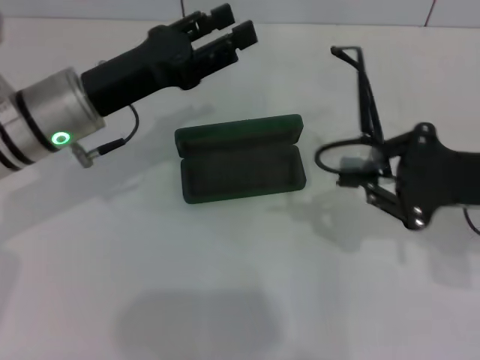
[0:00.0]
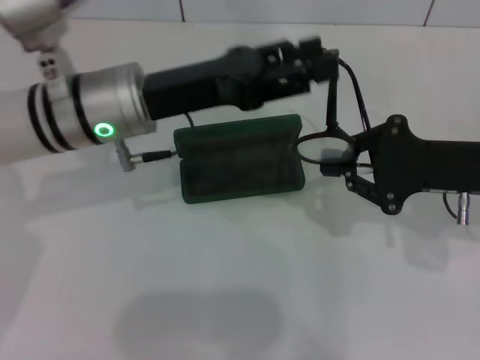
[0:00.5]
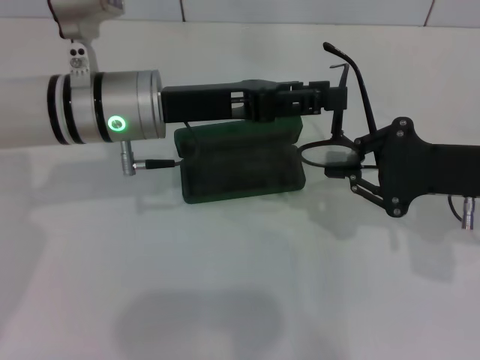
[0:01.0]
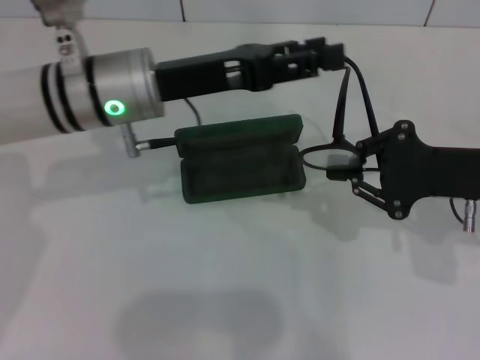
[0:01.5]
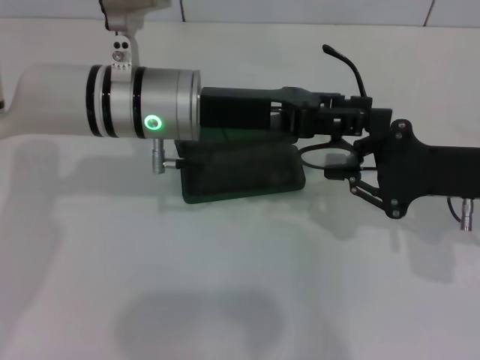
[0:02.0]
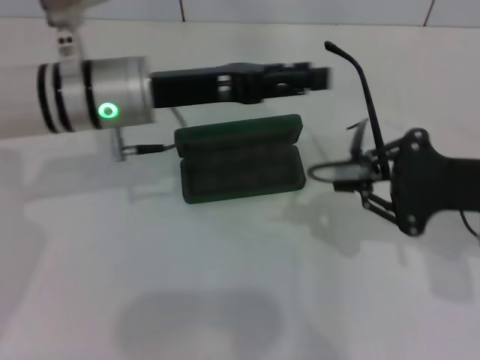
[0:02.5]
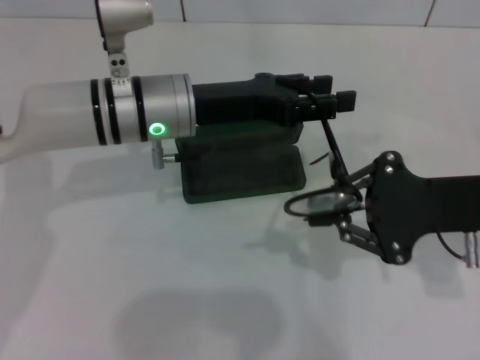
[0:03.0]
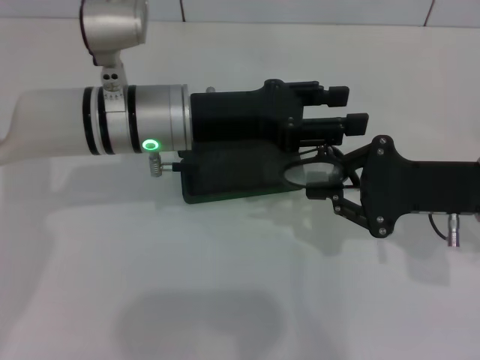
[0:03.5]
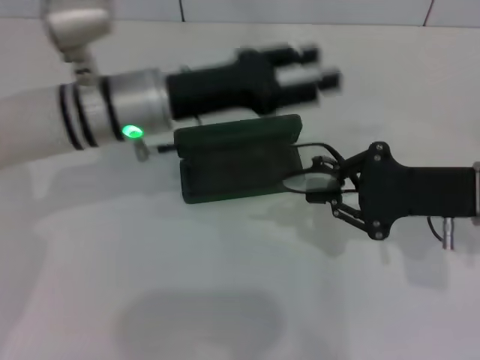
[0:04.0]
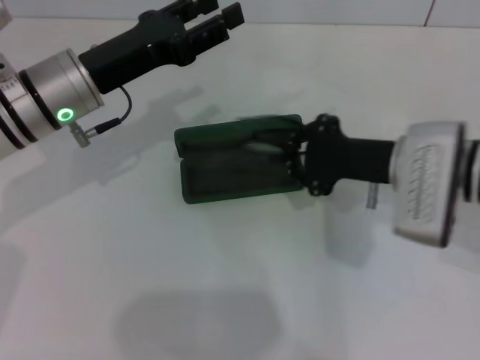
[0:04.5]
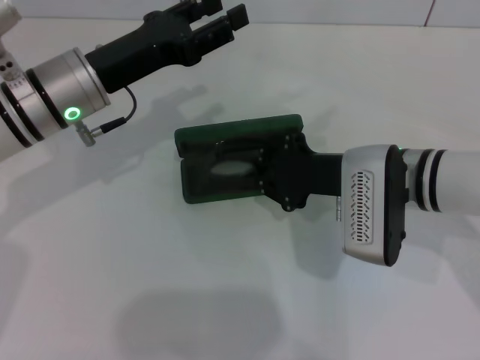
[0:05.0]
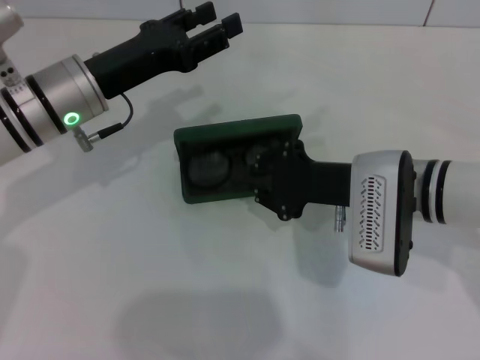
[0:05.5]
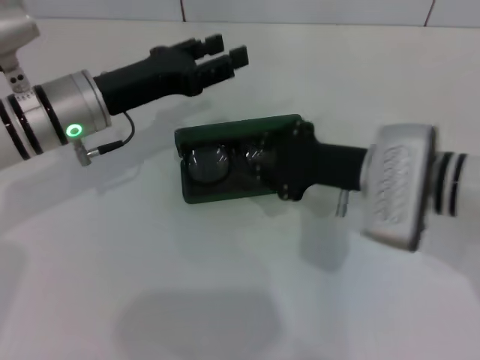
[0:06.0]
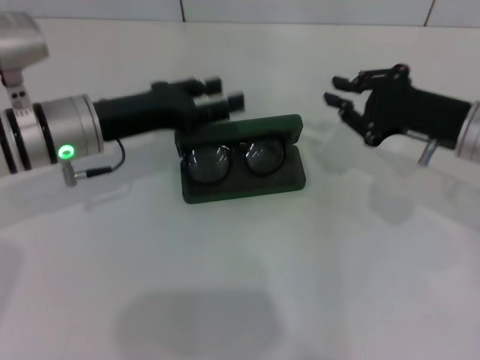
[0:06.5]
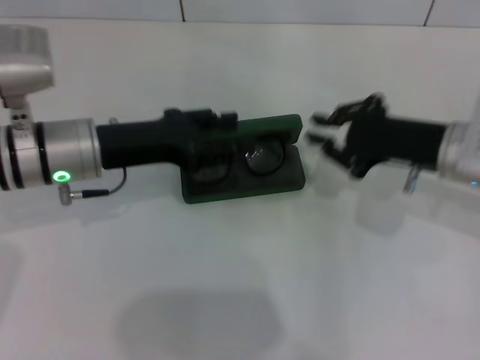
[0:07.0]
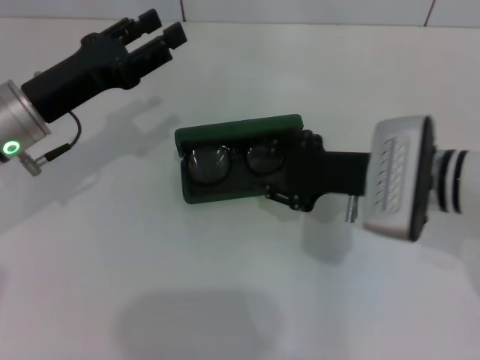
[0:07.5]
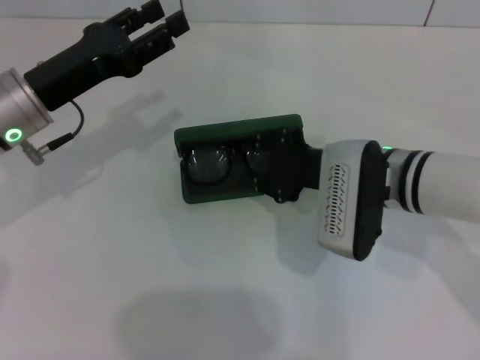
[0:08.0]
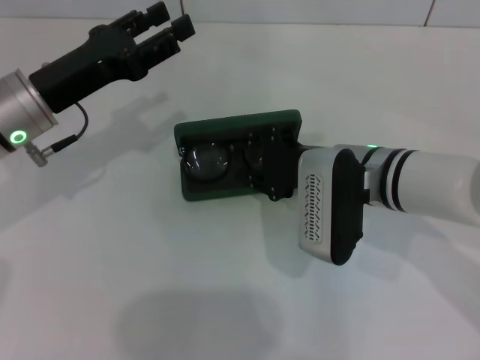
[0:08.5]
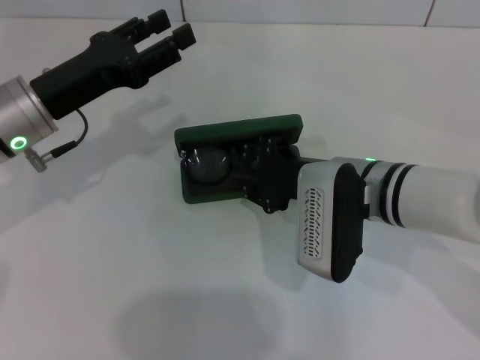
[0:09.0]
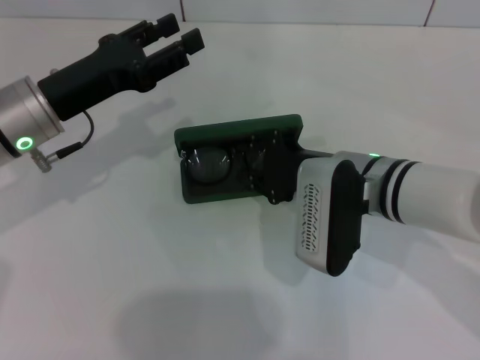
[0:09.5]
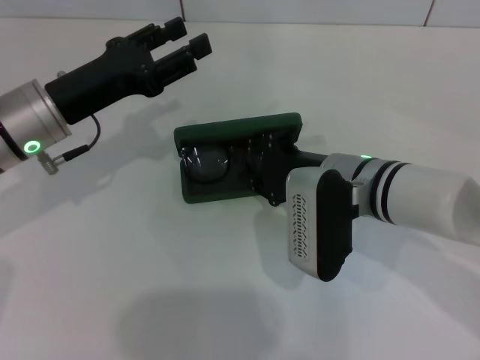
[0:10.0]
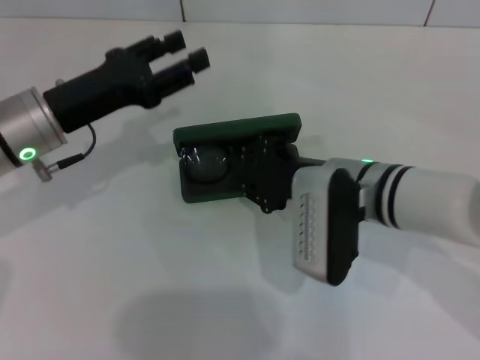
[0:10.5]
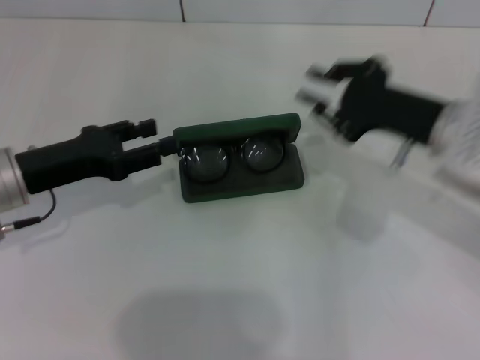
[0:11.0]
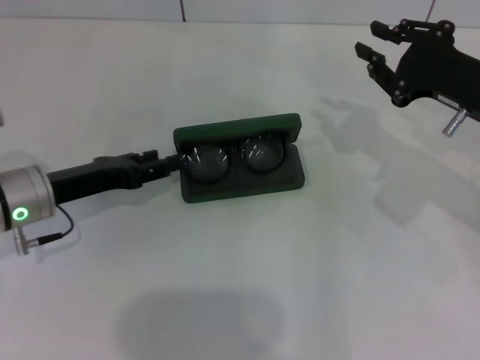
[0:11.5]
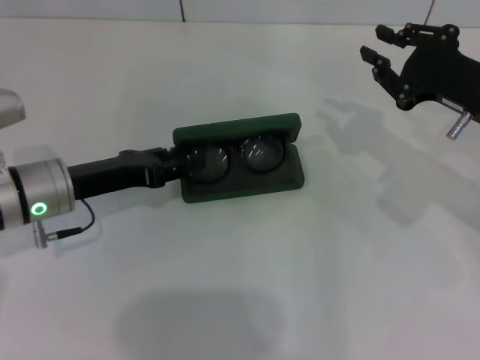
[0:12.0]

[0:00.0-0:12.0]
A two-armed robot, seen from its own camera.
Step, 0:00.0 to 0:03.5: Fold the frame with your left hand.
Step, 0:04.0 to 0:10.0: Put the glasses into the case with your right hand.
0:00.0 to 0:02.0: The left gripper travels to the right by roughly 10 cm.
0:04.0 to 0:06.0: Both grippers travel together to the left, some 10 cm.
0:06.0 to 0:08.0: The right gripper moves approximately 10 cm to the right and comes back.
0:08.0 to 0:10.0: There are only small adjustments of the grippers.
0:10.0 to 0:12.0: The left gripper goes about 5 cm downward; the right gripper travels to the right by roughly 15 cm.

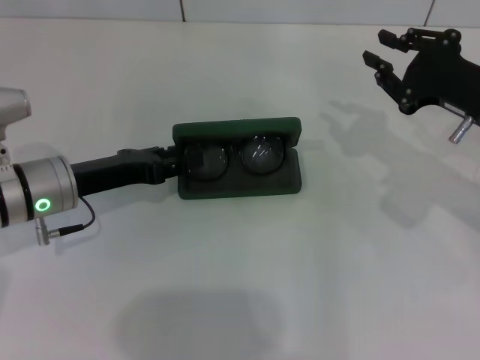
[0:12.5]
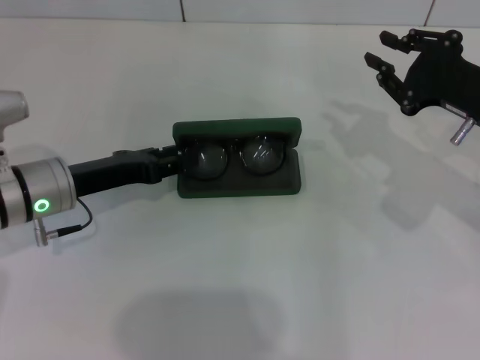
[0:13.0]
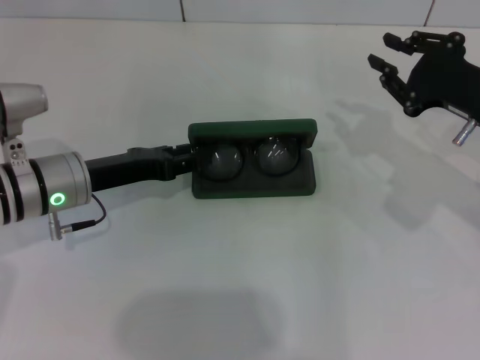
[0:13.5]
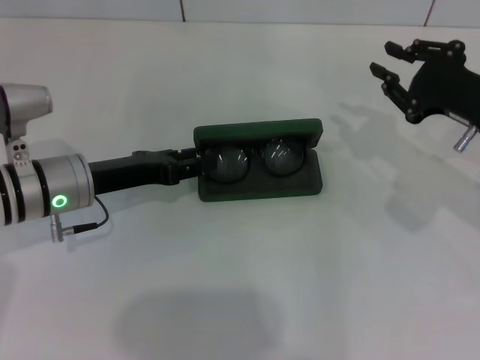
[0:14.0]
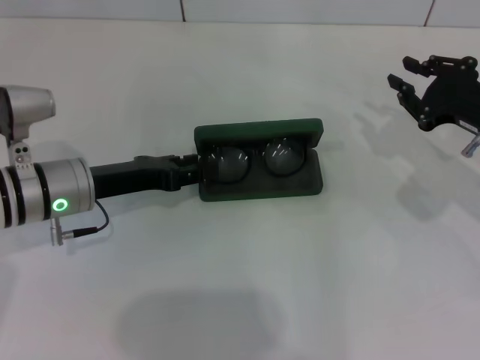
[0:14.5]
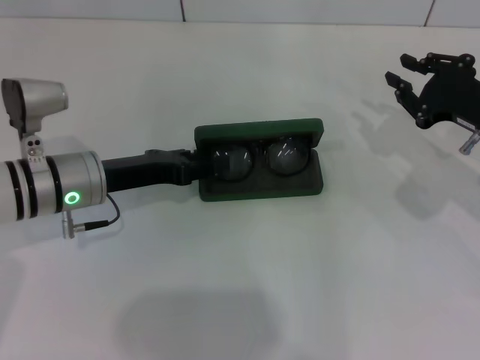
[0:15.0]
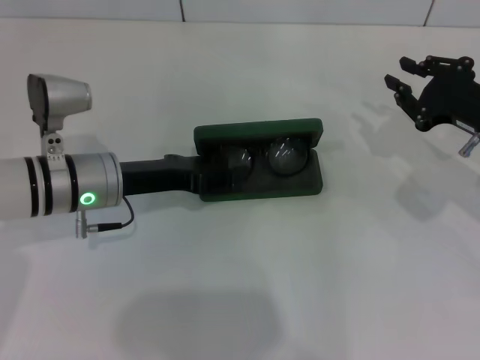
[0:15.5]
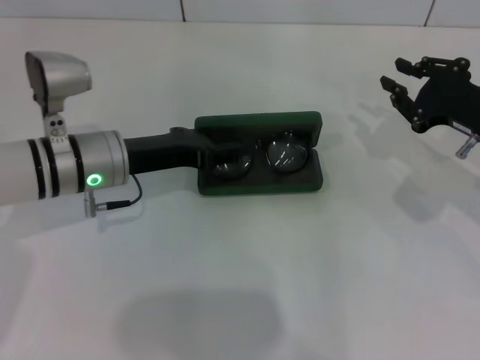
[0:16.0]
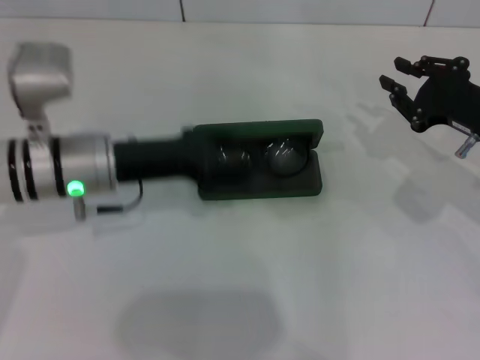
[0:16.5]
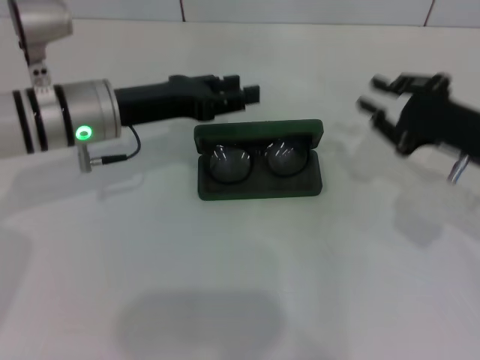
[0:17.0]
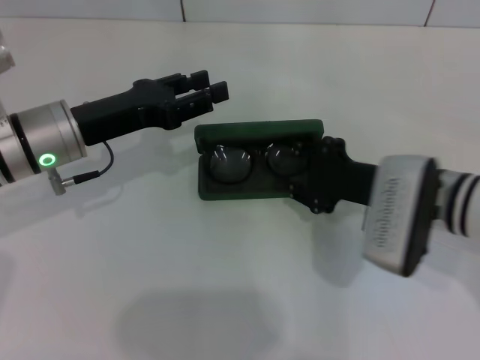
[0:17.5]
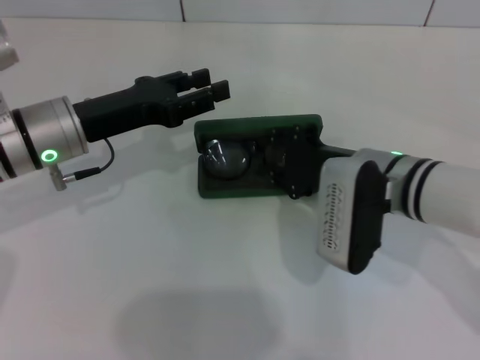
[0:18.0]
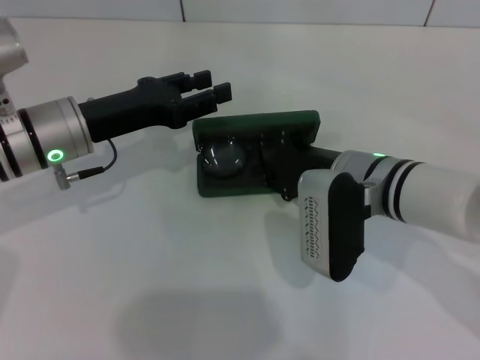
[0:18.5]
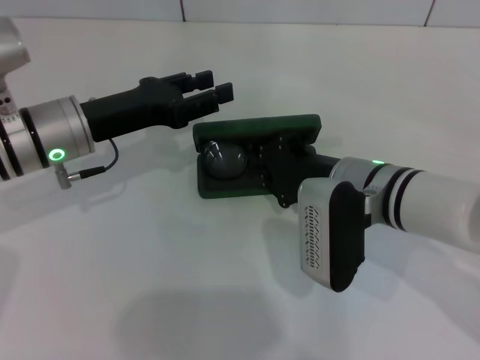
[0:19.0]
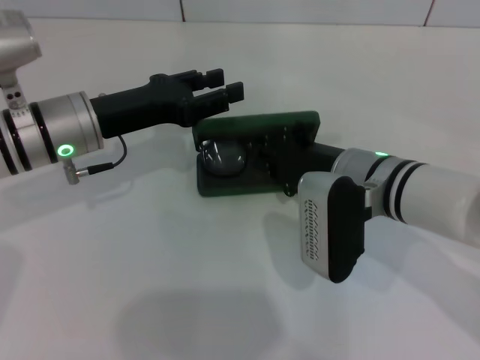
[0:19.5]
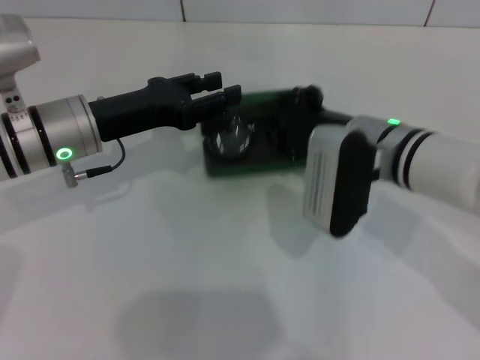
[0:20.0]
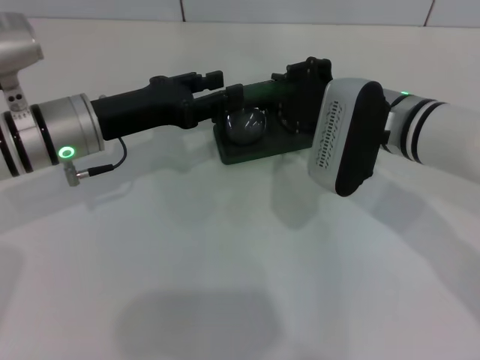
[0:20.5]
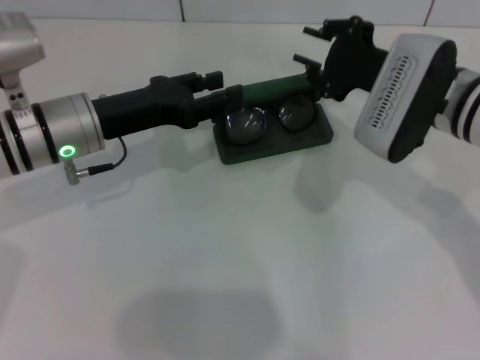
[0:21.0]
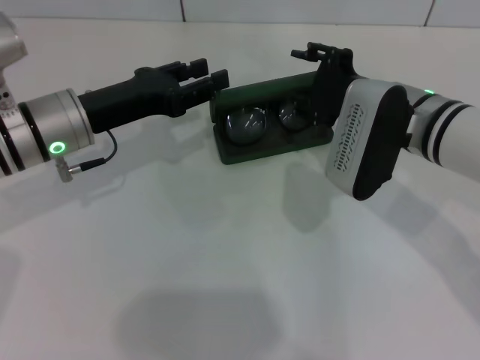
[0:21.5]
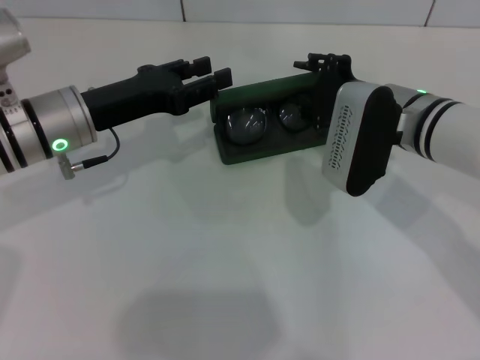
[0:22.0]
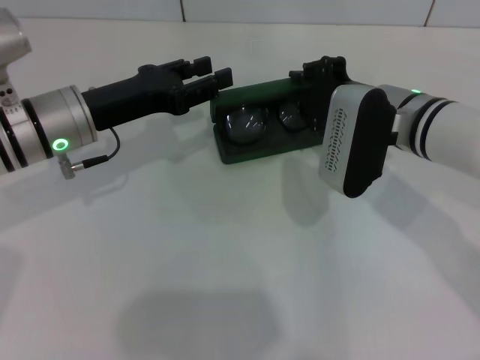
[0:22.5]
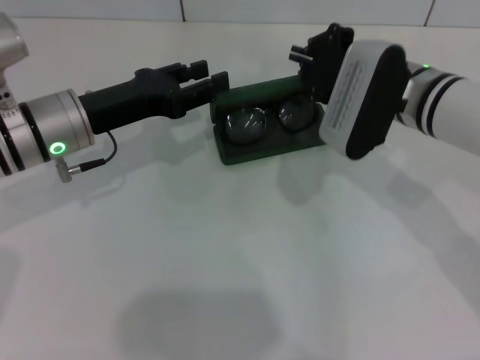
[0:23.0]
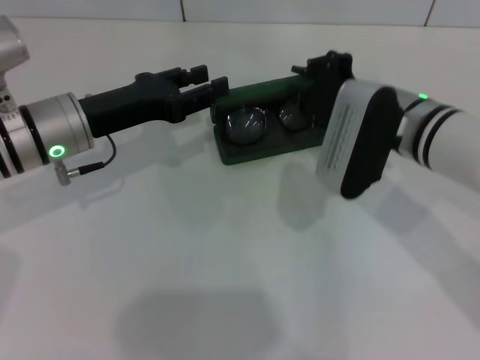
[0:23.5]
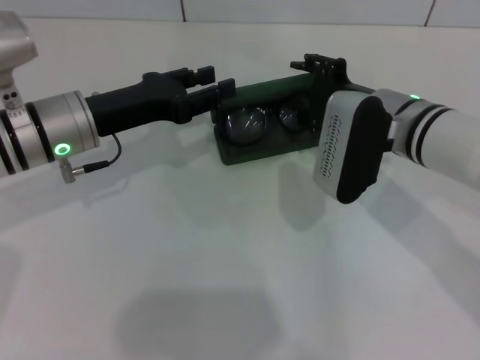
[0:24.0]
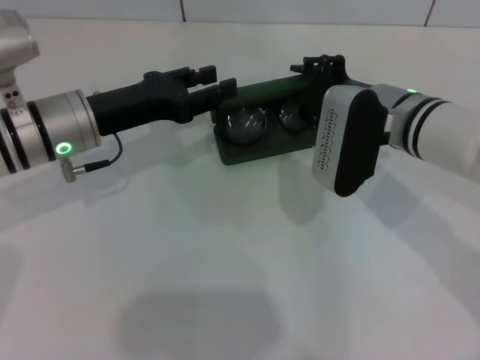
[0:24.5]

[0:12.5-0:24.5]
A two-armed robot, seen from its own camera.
0:12.5 to 0:14.5: The grippers move only a little.
0:14.5 to 0:16.5: The left gripper shifts by roughly 5 cm.
0:16.5 to 0:18.5: The right gripper heads to the left, covering about 15 cm.
0:18.5 to 0:20.5: The right gripper ends up roughly 5 cm from where it was.
0:20.5 to 0:22.5: The grippers move only a little.
0:22.5 to 0:24.5: The right gripper closes, then reopens.

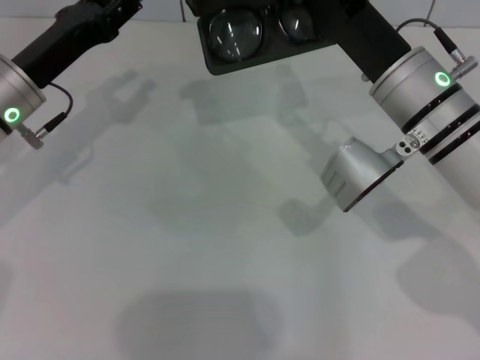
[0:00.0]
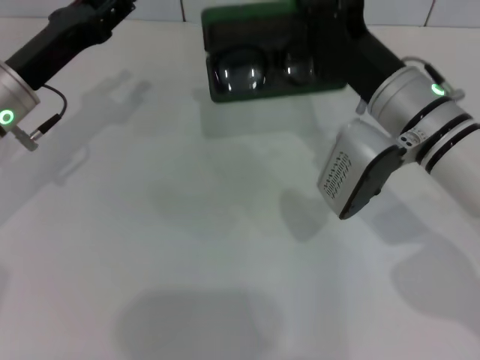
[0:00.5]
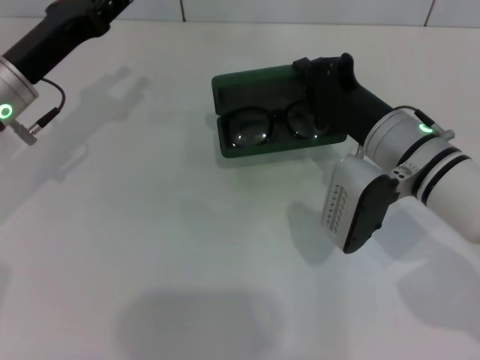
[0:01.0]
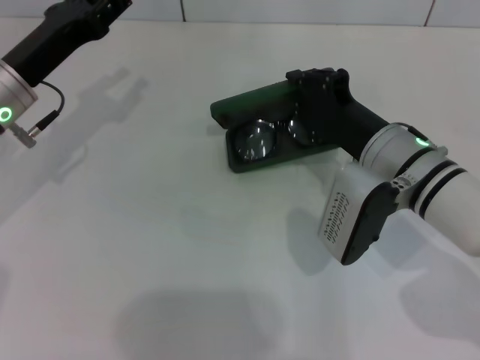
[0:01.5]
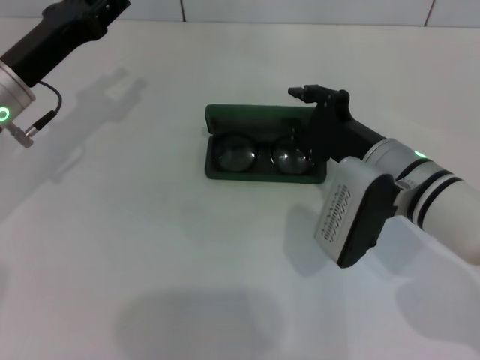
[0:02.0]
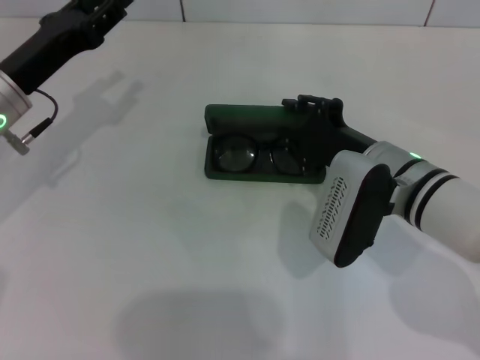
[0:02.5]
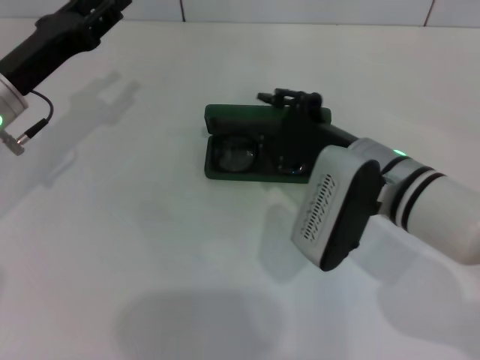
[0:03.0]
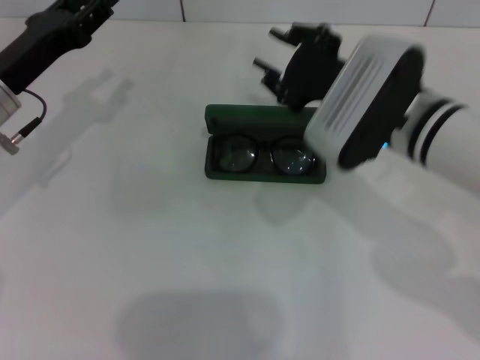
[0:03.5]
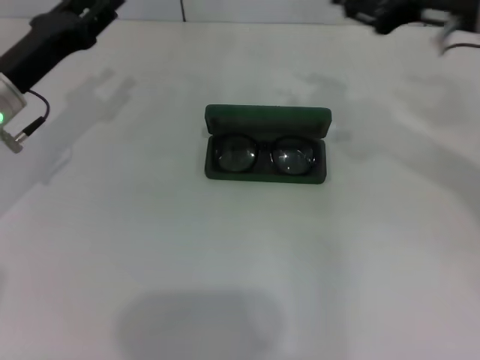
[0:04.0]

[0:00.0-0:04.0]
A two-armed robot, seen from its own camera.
Step, 0:00.0 to 0:02.0: Place the glasses case in the center of the table with your right hand.
0:00.0 to 0:02.0: The right gripper travels downward by roughly 5 cm.
0:02.0 to 0:04.0: The right gripper travels upward and to the right by roughly 20 cm.
